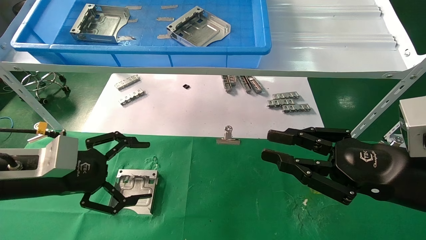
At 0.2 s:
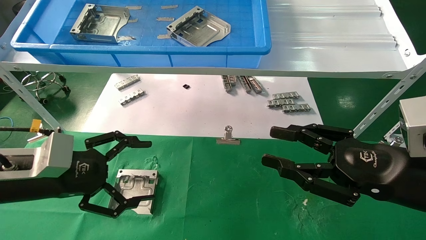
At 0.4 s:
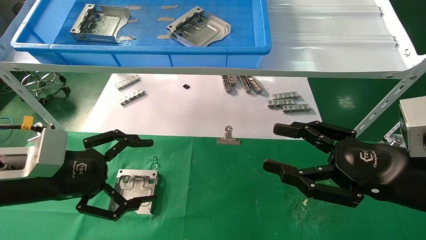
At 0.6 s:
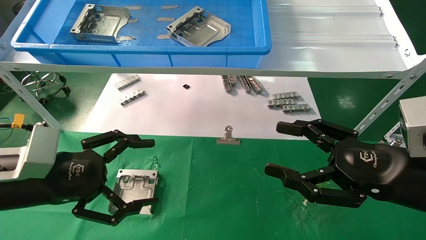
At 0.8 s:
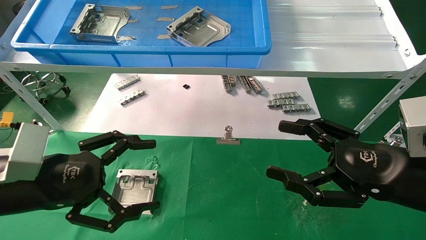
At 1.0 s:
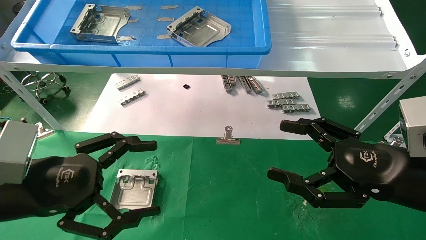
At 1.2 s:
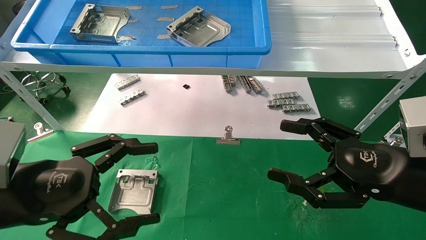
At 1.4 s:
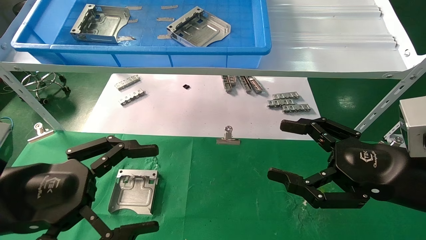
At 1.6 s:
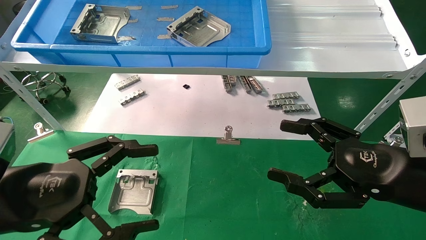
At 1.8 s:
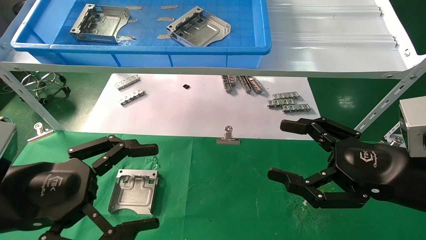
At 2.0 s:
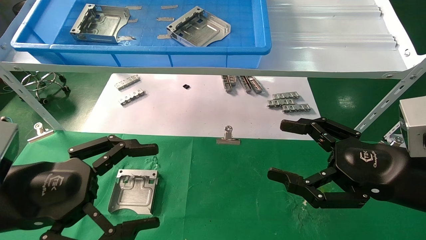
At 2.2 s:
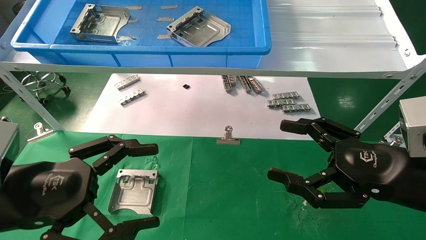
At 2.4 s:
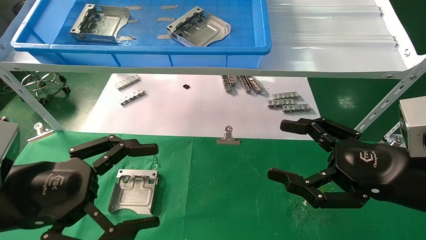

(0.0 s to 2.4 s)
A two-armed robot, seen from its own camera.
Task of the whole recording: use the mechanical arm to pick up the parts and place them on the table.
0.0 s - 1.2 s: The right gripper opens its fingers. Meanwhile the left gripper goes some 10 cm backward.
1.2 s - 2.4 s: The two grippers keep their place.

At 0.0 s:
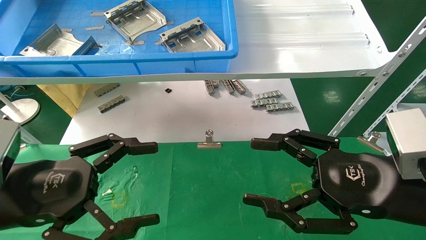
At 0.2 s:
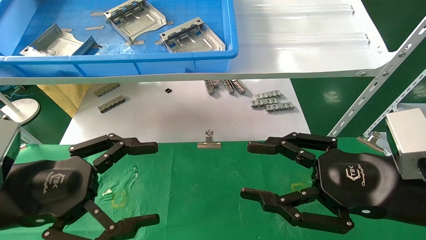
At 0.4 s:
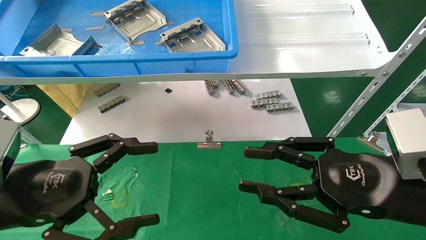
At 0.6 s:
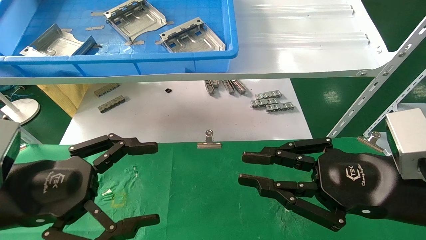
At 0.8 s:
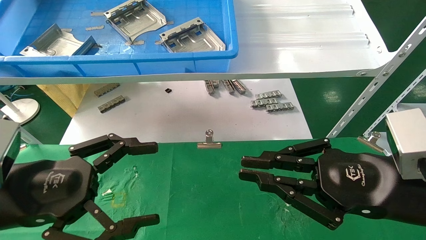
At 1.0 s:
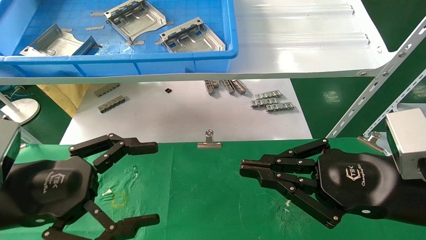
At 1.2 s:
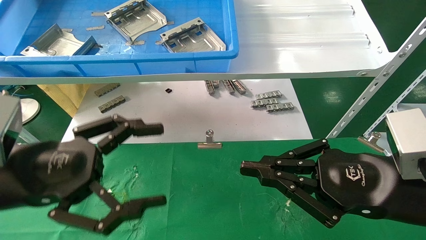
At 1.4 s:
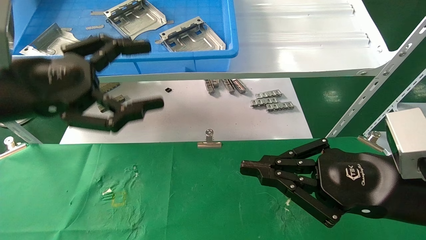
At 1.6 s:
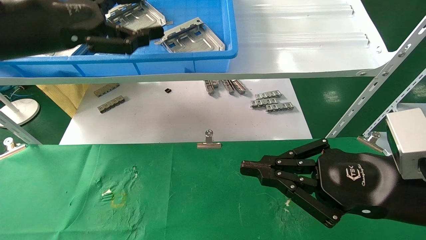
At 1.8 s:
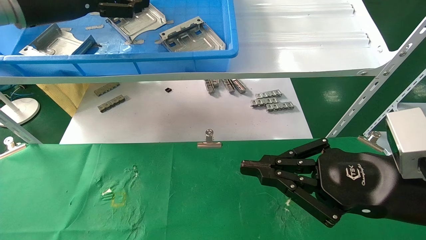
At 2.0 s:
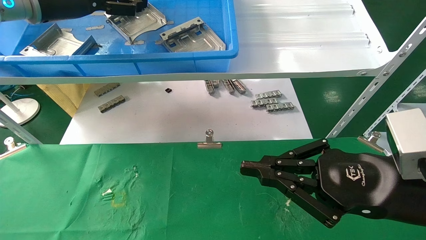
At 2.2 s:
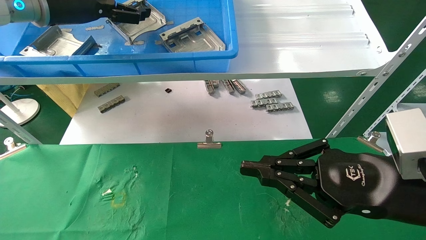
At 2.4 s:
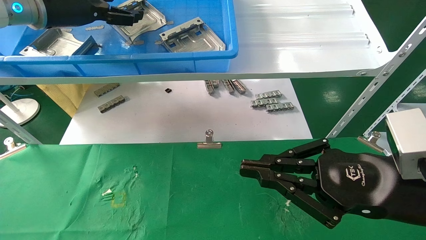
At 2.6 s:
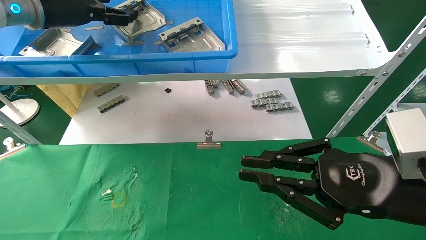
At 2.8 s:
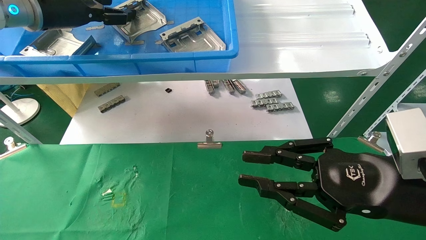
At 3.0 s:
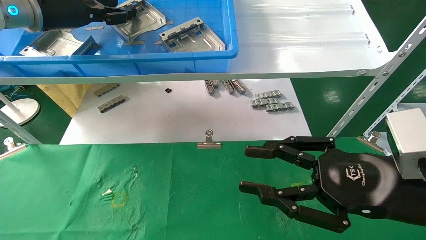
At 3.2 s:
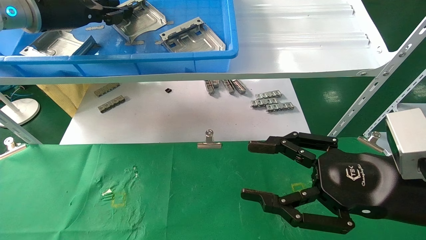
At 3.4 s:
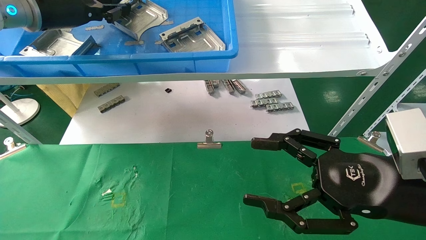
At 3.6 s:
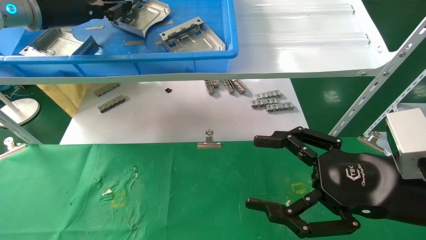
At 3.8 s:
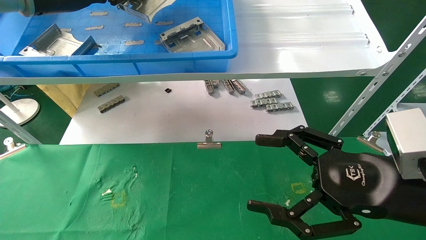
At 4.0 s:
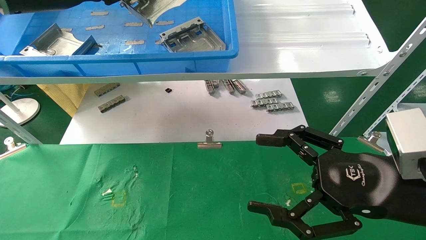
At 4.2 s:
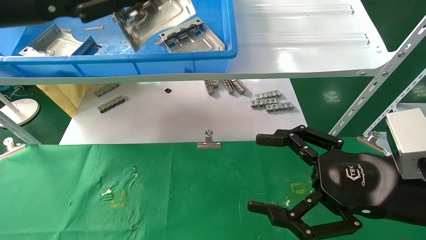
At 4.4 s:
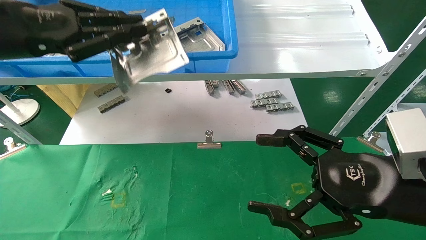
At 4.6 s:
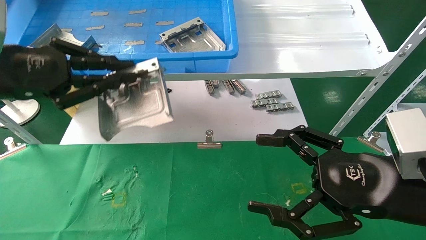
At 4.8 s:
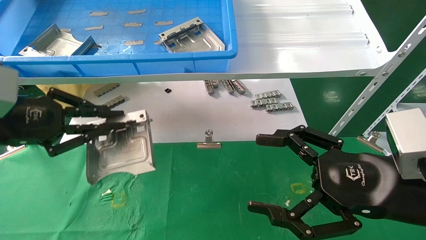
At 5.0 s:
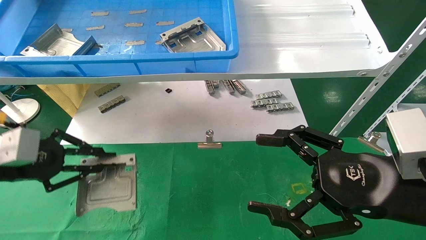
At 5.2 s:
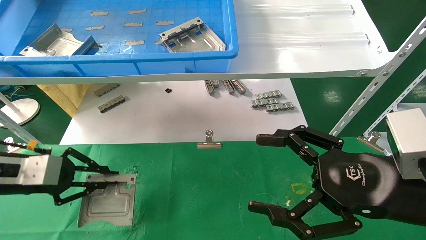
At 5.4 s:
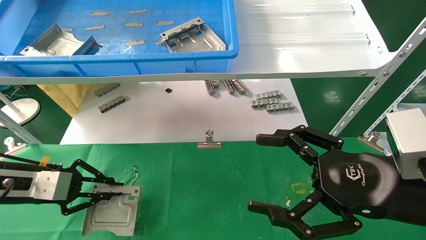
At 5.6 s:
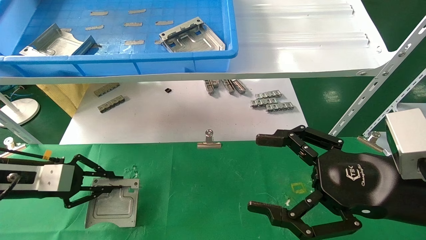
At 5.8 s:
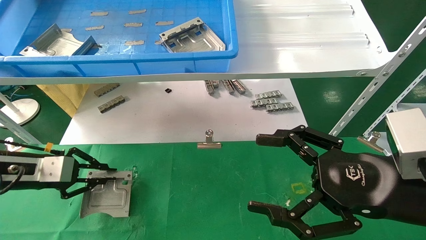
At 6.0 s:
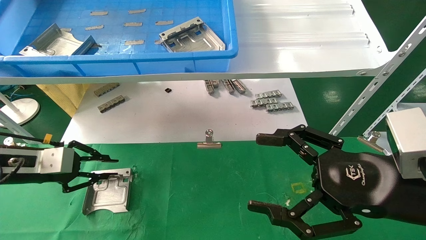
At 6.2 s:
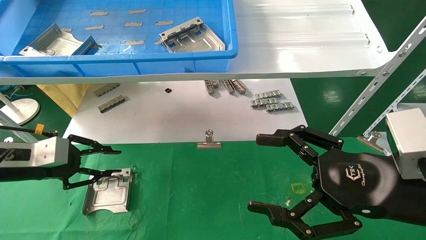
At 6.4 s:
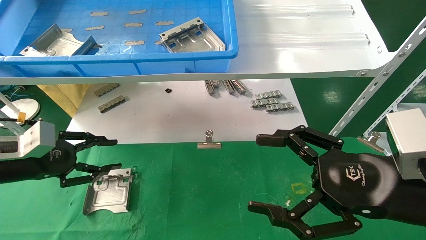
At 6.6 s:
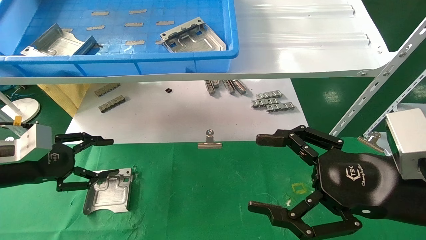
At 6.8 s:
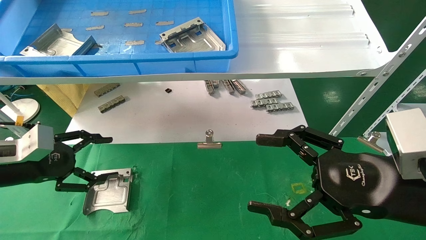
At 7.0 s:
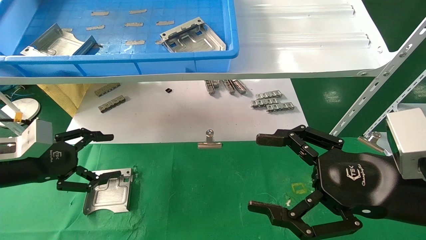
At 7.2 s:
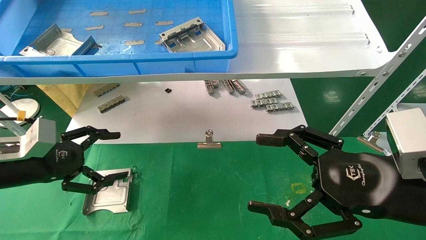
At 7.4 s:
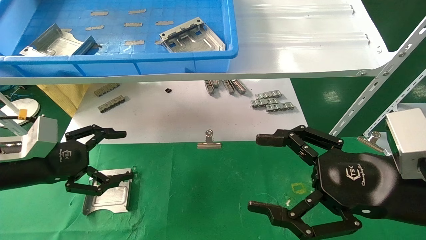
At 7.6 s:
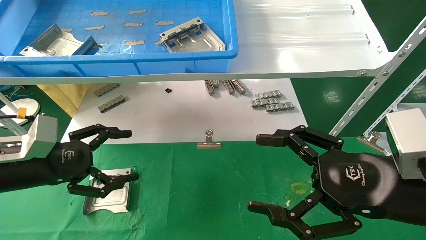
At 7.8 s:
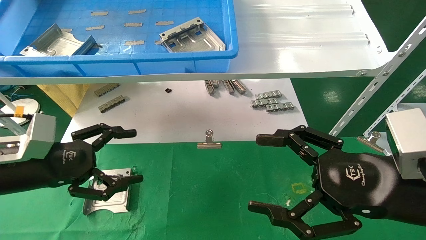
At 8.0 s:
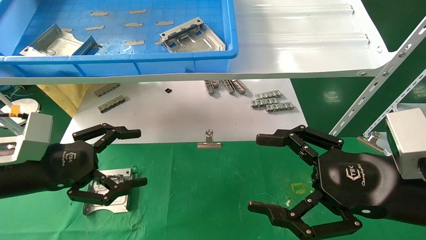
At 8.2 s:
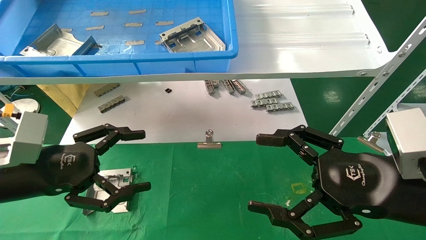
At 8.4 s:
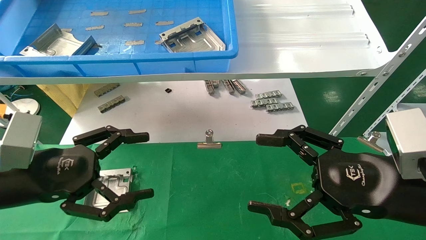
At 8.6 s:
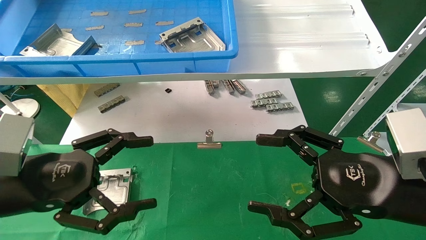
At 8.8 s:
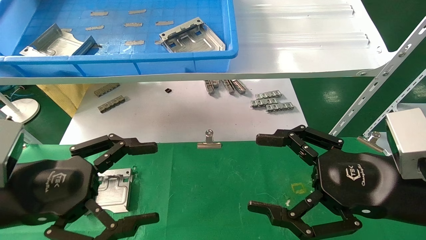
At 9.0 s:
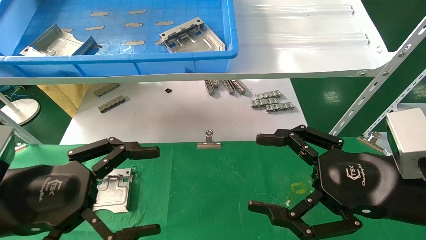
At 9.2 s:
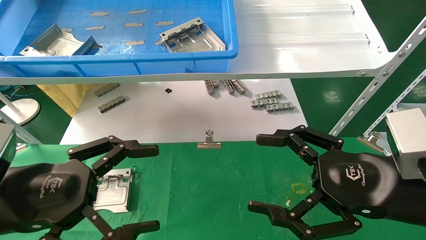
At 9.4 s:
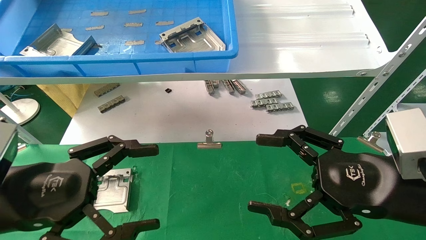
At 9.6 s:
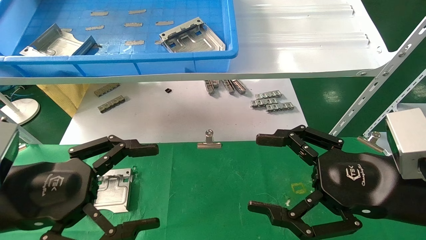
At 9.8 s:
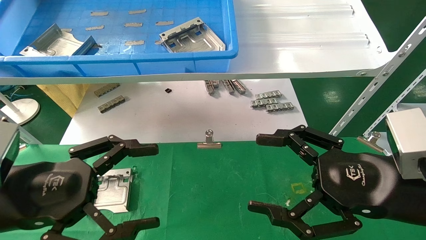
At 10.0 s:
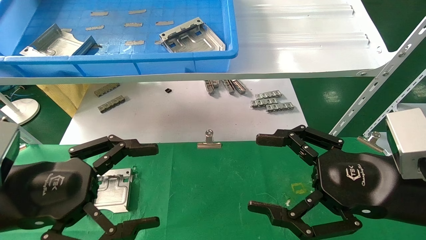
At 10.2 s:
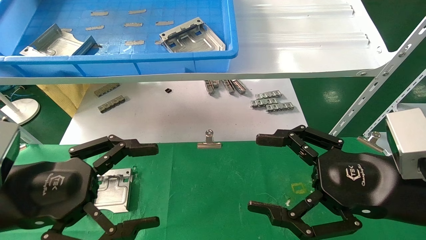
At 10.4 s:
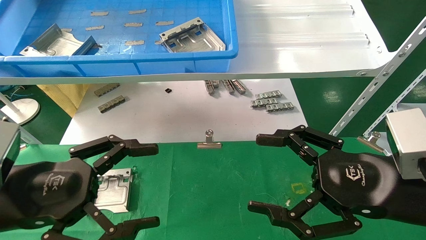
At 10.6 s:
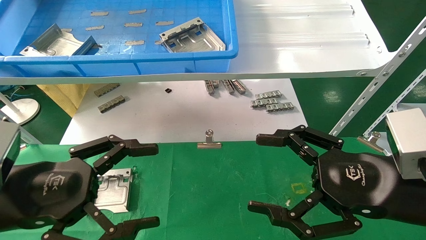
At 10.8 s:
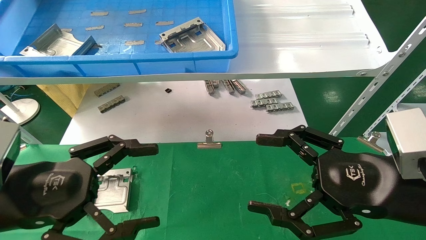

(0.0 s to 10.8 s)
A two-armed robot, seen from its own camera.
Task of the whole recording: use the mechanical arm to pick up the parts and place them on the table.
Step, 1.6 s - 3.4 s: Pick up the hard drive bracket from the feeding area.
Step, 3.6 s - 5.8 s: Place the hard drive bracket into the box.
0.0 s - 1.6 s: The left gripper goes roughly 20 cm upward and forward. The right gripper closes up.
1.6 s - 3.0 s: The left gripper goes about 10 cm forward, and closes.
3.0 s - 4.6 s: The left gripper shifts roughly 15 cm backward and downward, and closes. The right gripper opens.
4.6 s - 6.2 s: The left gripper moves downward, roughly 15 cm.
6.2 s - 7.8 s: The left gripper shifts about 5 cm to the right, and opens up.
7.8 s - 9.2 s: The left gripper heads backward and to the right, covering approximately 10 cm.
9.2 s - 10.8 s: Both grippers stay put.

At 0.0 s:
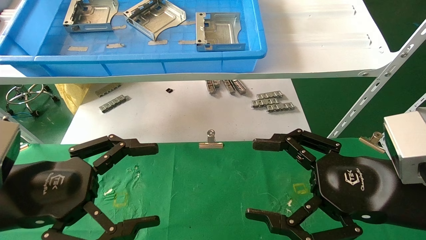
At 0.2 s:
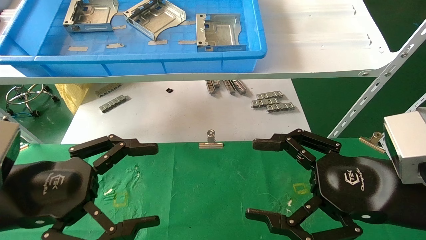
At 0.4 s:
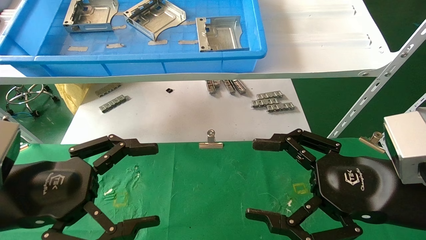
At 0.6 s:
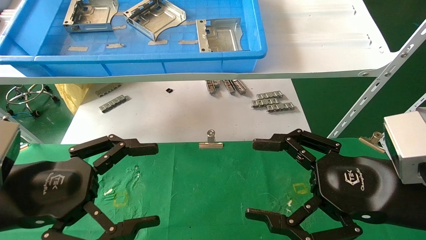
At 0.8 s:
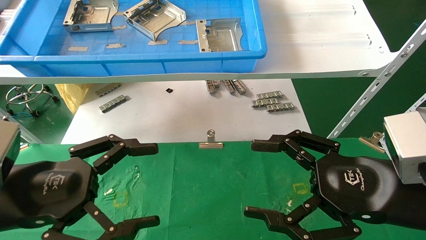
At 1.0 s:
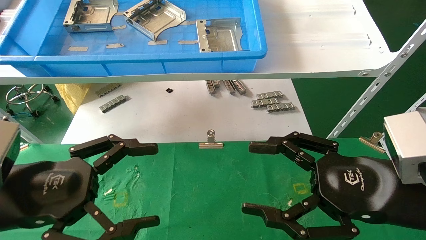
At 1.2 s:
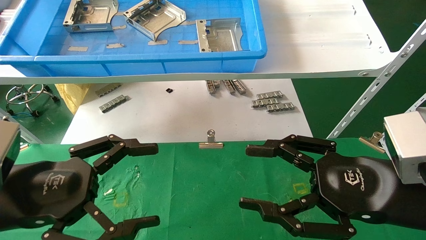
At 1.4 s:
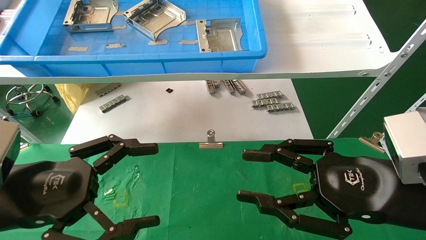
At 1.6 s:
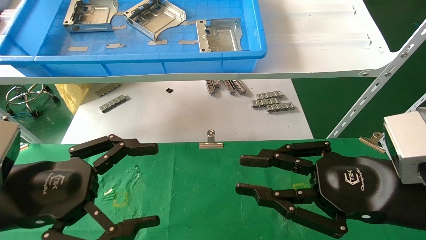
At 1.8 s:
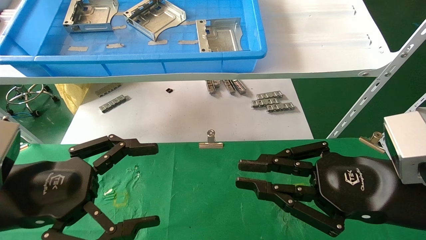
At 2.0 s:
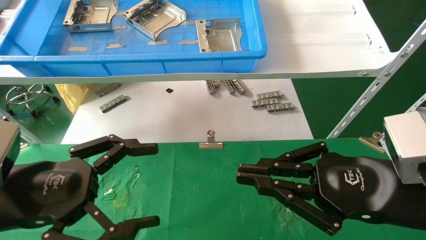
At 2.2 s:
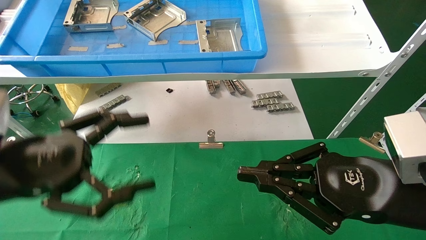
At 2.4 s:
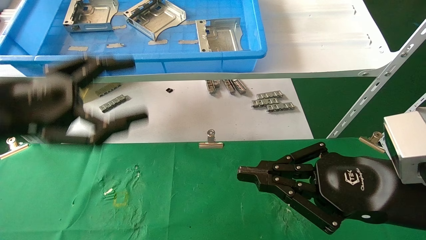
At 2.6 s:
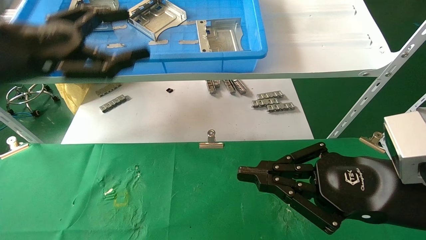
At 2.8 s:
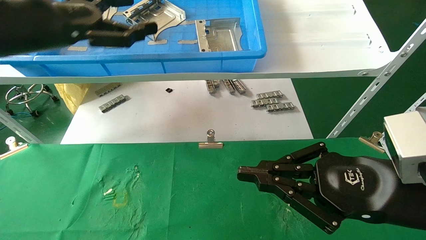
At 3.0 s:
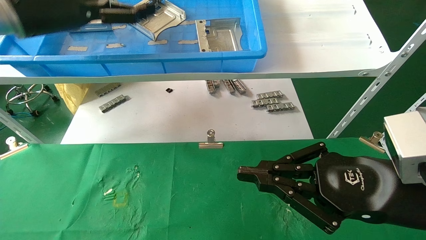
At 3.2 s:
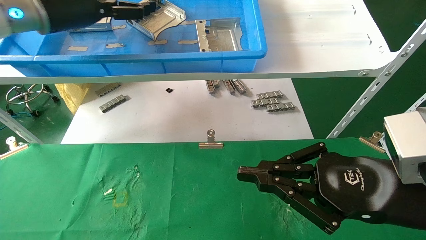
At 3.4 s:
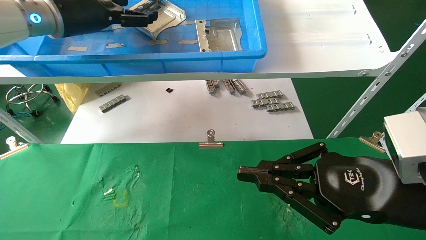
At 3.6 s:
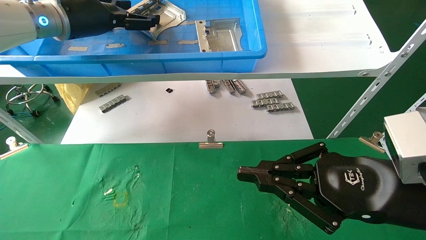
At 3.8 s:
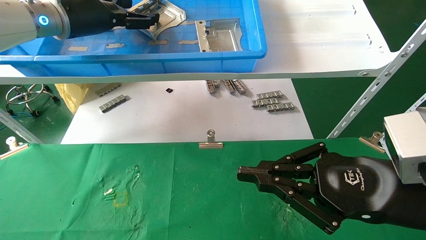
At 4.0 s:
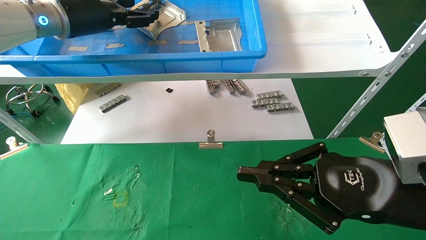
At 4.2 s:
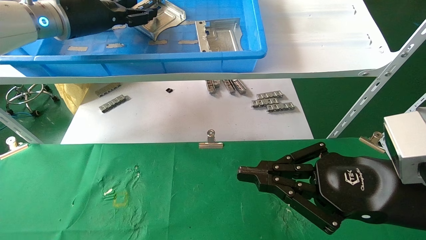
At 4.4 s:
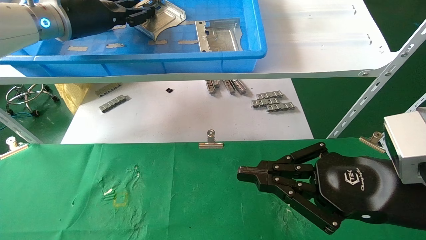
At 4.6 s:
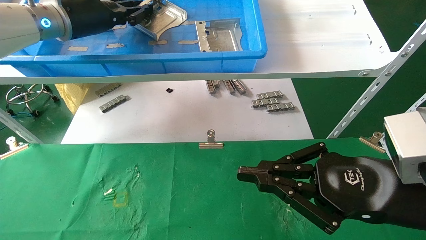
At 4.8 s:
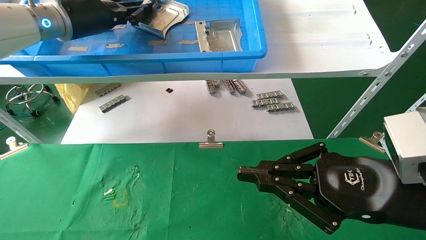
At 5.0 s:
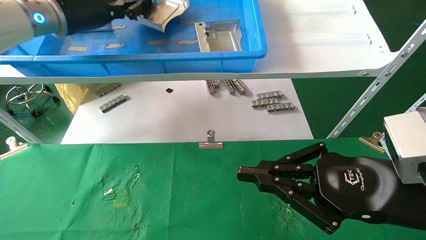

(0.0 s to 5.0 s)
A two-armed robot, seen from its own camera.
Task of the whole recording: use the mechanical arm to pick up the parts and place them on the table.
0.0 s - 1.6 s: The right gripper closes up.
1.6 s - 3.4 s: The left gripper is displaced forward and upward by approximately 30 cm. Meanwhile the right gripper closes.
3.4 s - 5.0 s: The left gripper closes.
